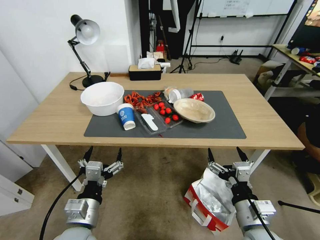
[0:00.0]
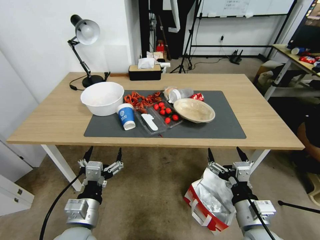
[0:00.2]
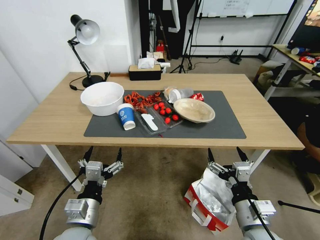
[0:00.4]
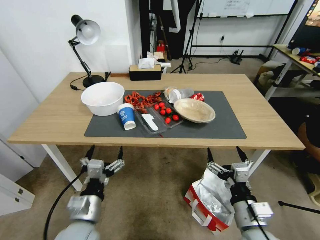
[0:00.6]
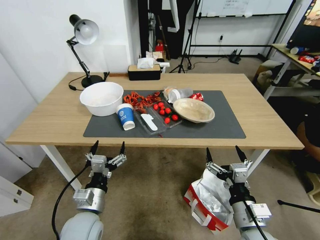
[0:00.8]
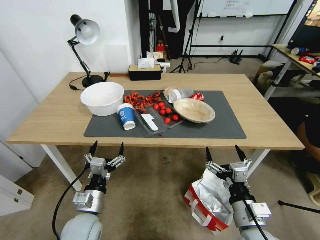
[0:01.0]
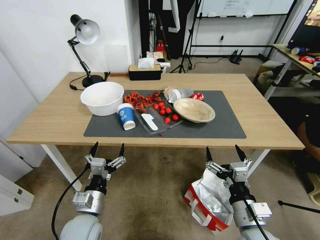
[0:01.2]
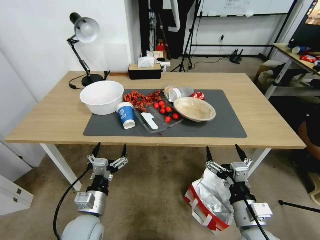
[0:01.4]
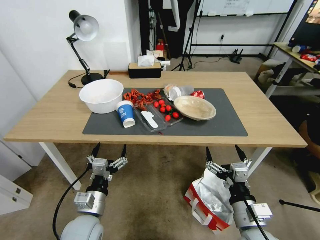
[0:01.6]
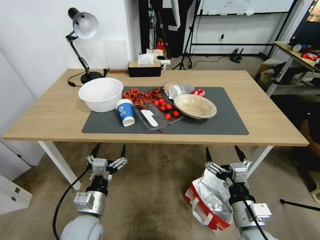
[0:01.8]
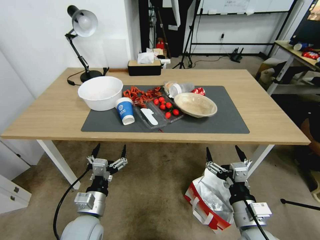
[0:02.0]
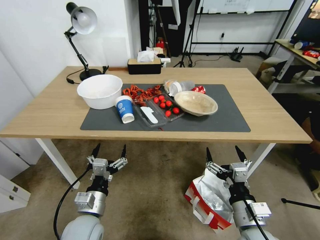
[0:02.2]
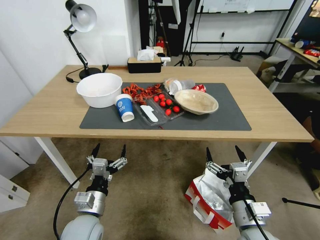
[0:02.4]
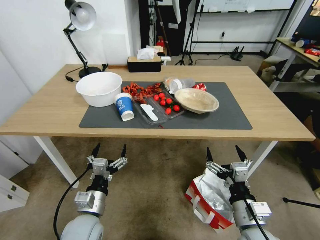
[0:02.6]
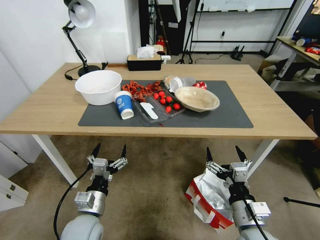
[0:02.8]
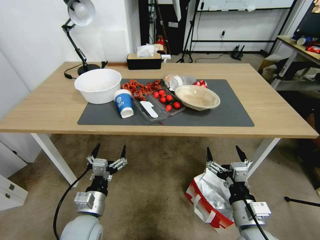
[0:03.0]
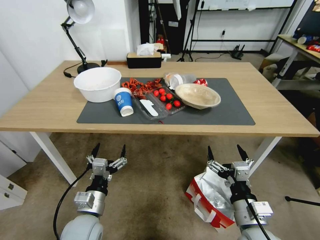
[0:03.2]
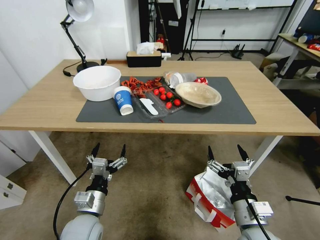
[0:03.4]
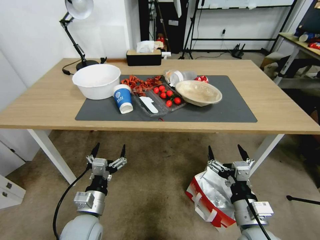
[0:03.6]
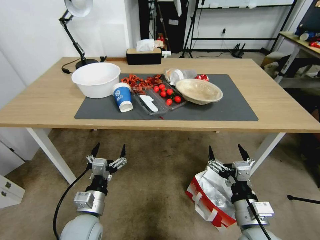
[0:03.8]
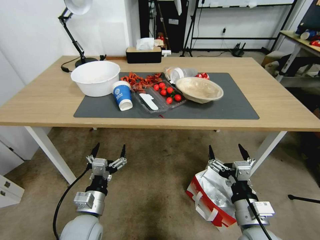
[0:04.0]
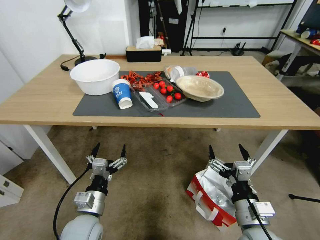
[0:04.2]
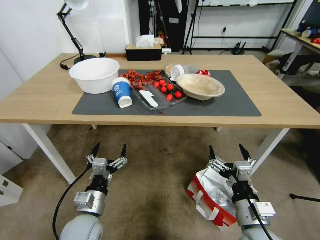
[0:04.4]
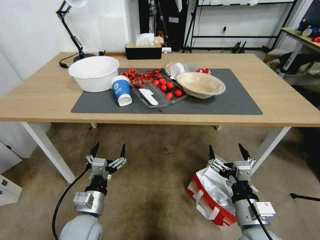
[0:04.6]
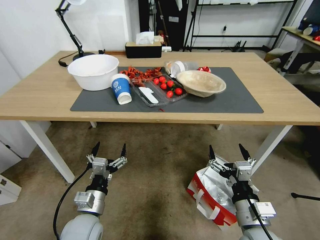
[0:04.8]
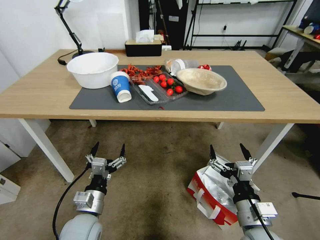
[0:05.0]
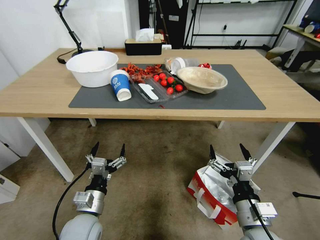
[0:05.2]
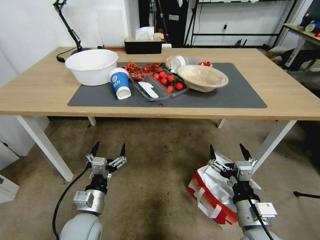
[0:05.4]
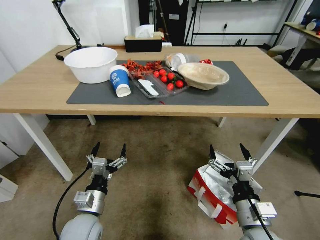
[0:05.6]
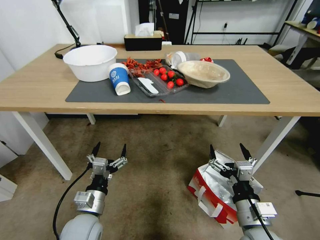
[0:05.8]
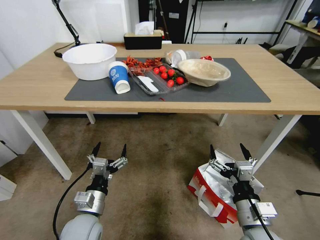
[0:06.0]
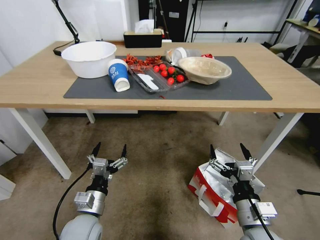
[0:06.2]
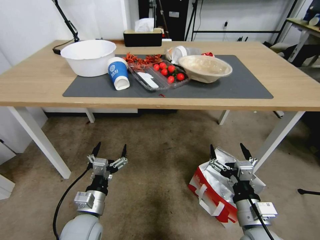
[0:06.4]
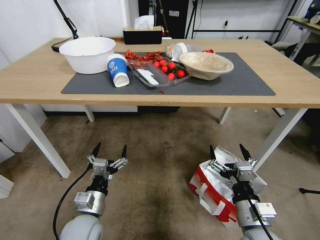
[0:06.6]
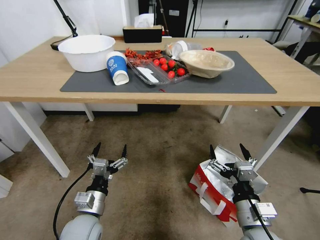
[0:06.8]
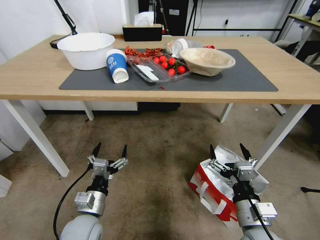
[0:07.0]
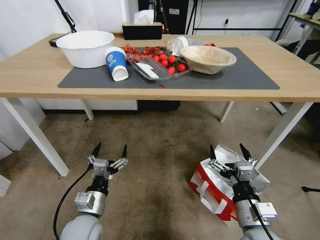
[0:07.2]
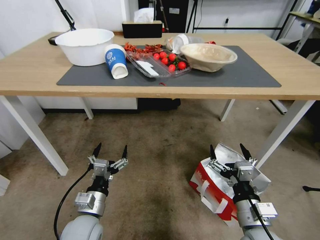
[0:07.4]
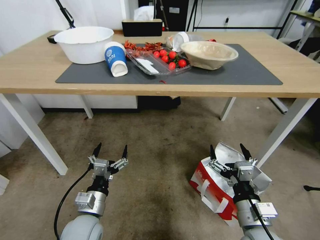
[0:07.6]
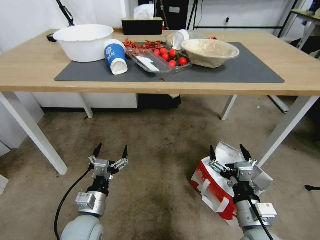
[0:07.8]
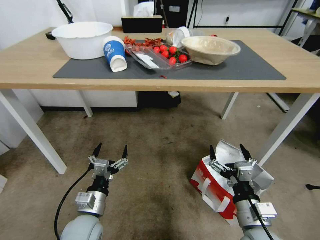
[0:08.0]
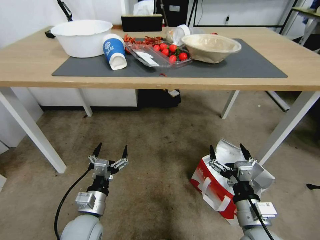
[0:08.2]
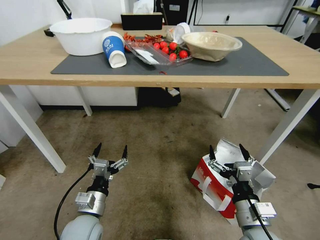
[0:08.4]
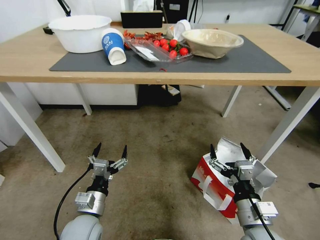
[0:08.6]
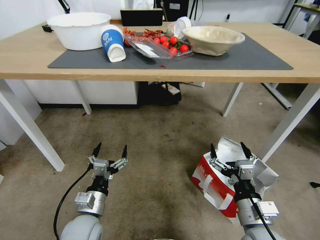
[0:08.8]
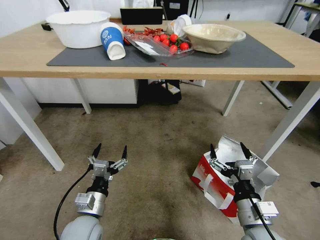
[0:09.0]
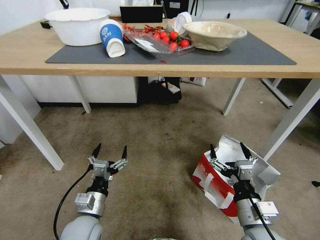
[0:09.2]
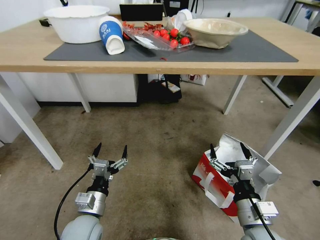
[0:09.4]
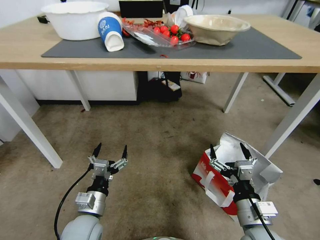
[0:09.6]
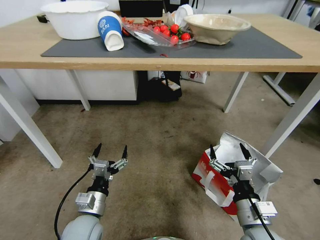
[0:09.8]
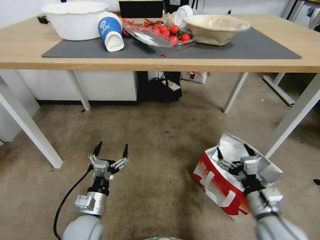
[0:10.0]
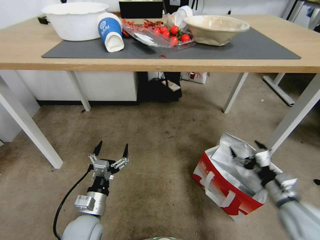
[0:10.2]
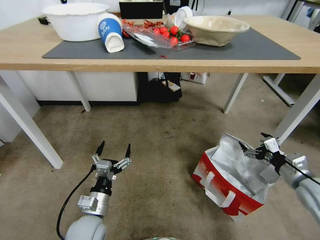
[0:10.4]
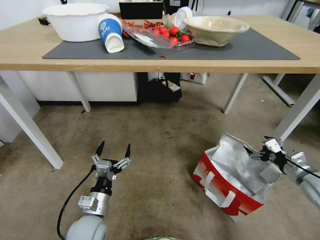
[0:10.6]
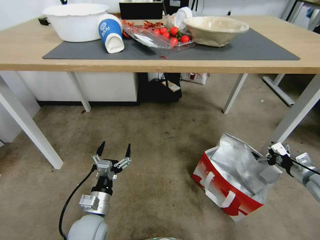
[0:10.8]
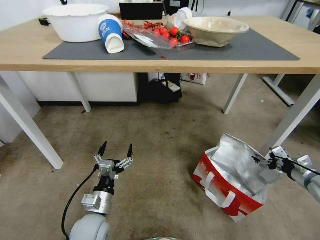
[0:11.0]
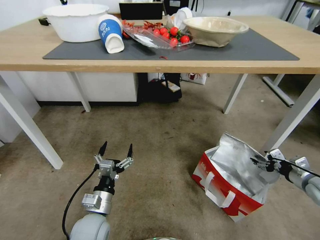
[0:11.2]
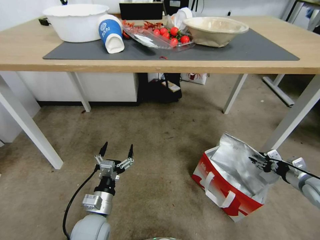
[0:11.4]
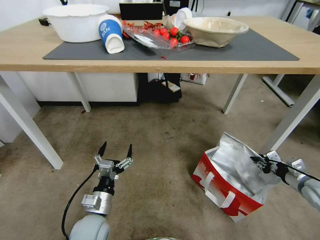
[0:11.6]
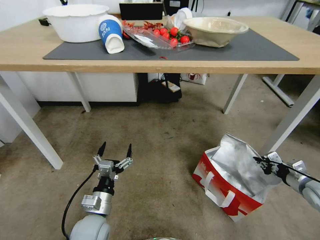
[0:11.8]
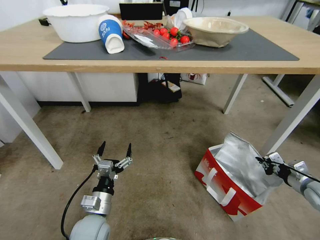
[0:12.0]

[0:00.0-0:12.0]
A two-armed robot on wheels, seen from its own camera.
Task of the whole recording: Pick up the food delivery bag from the floor and place it on the table.
0:09.0 to 0:10.4: The right gripper goes some 20 cm to the right and forward.
0:10.4 to 0:12.0: The right gripper shifts roughly 10 cm to the right and downward, and closes up.

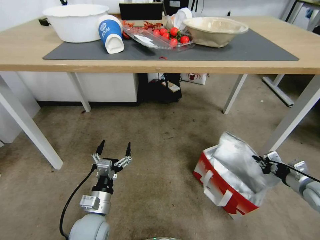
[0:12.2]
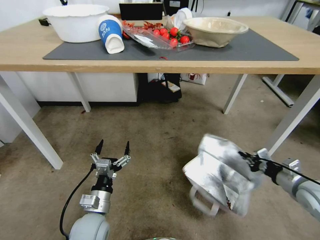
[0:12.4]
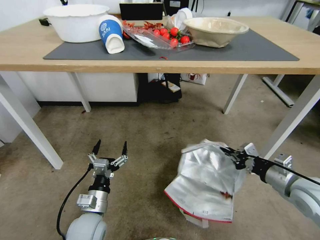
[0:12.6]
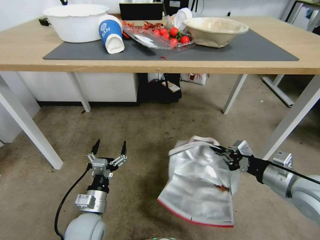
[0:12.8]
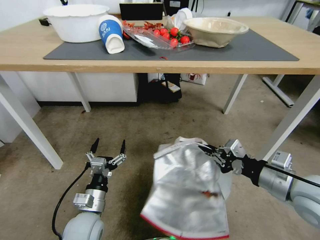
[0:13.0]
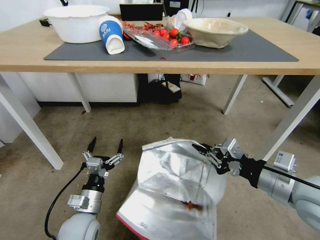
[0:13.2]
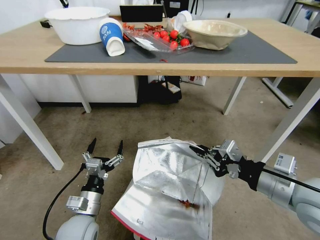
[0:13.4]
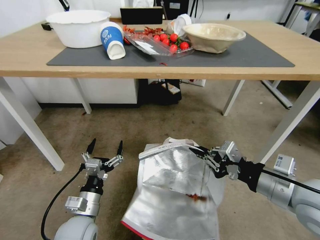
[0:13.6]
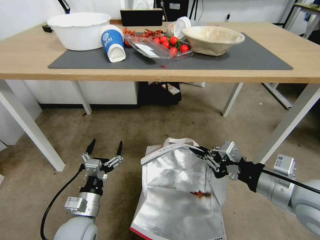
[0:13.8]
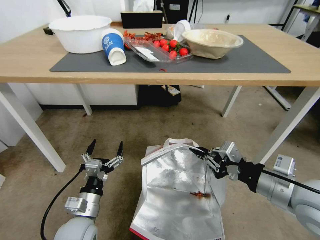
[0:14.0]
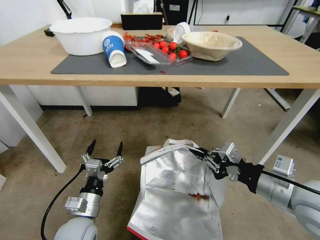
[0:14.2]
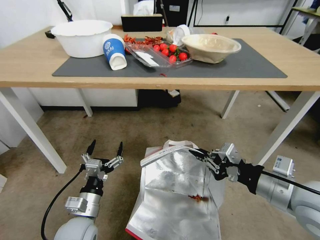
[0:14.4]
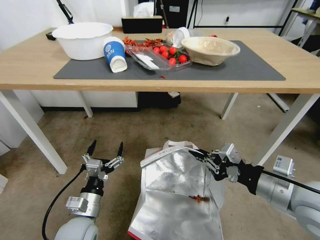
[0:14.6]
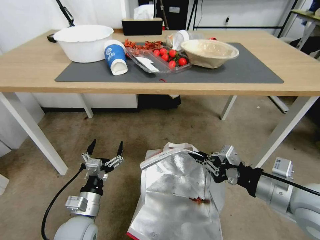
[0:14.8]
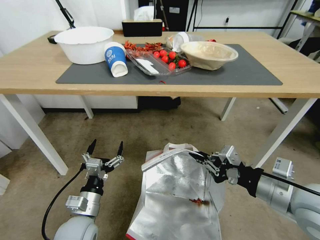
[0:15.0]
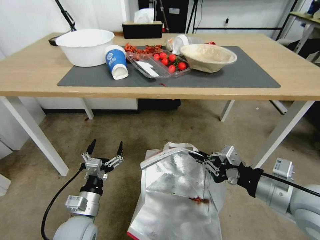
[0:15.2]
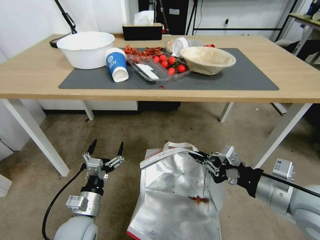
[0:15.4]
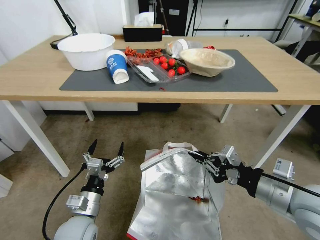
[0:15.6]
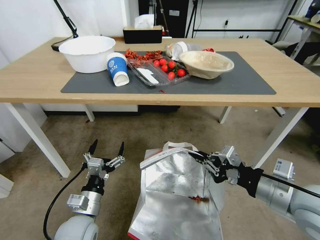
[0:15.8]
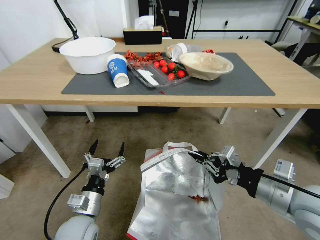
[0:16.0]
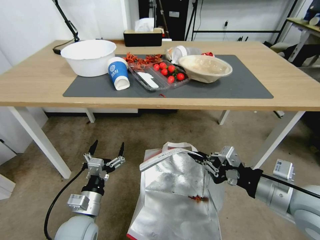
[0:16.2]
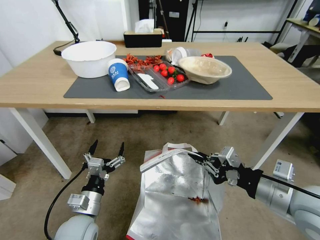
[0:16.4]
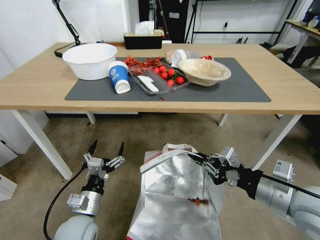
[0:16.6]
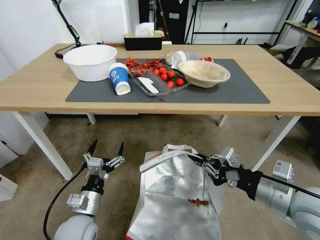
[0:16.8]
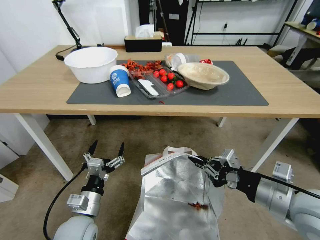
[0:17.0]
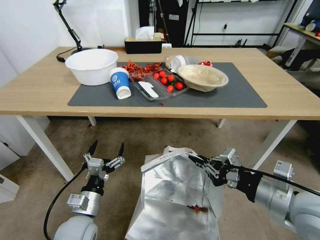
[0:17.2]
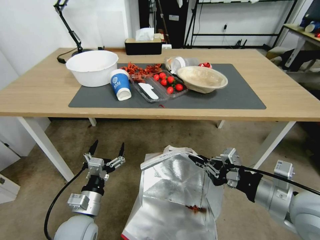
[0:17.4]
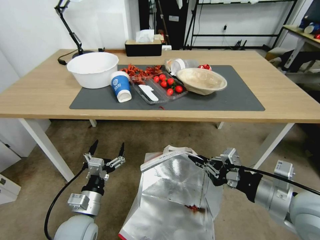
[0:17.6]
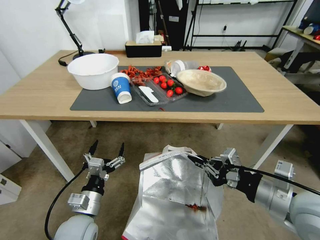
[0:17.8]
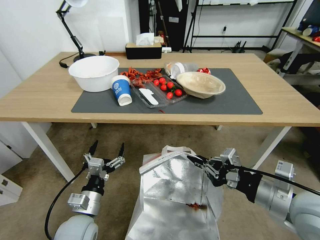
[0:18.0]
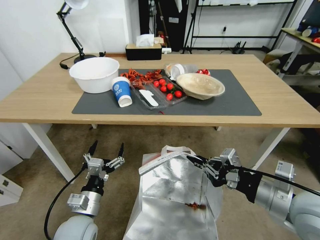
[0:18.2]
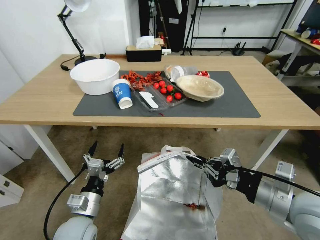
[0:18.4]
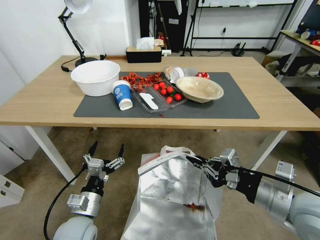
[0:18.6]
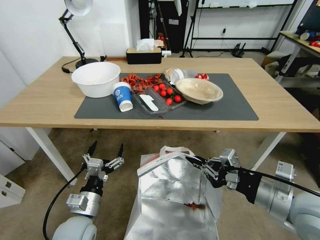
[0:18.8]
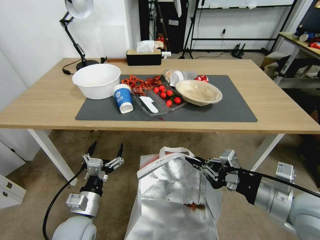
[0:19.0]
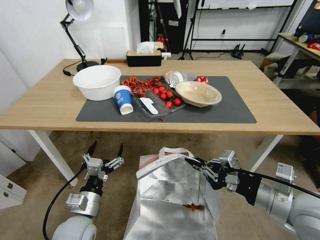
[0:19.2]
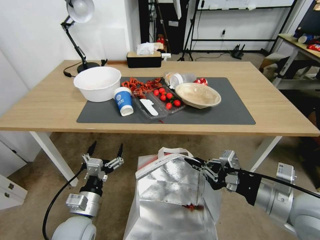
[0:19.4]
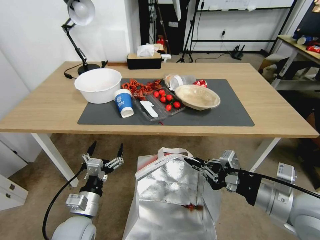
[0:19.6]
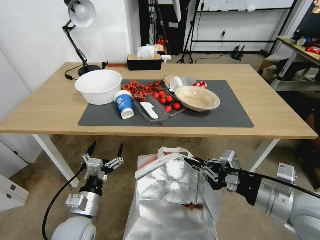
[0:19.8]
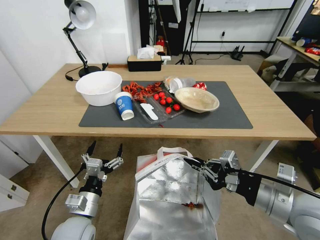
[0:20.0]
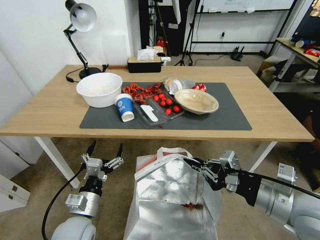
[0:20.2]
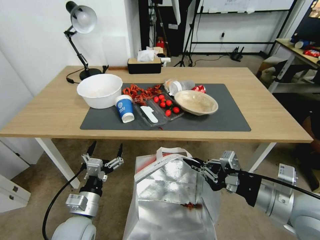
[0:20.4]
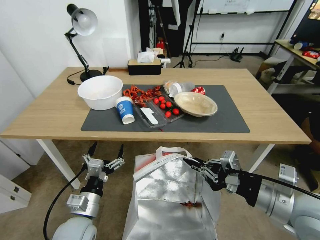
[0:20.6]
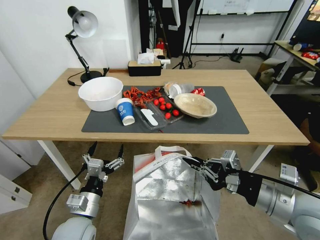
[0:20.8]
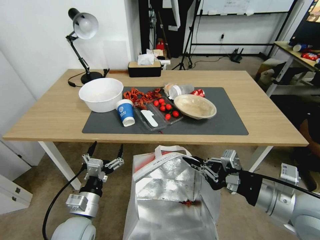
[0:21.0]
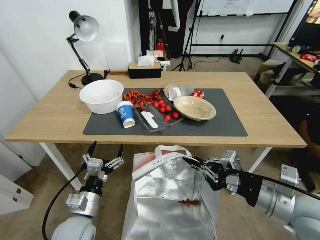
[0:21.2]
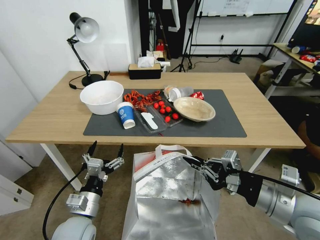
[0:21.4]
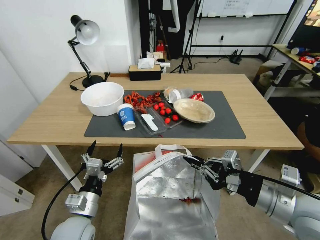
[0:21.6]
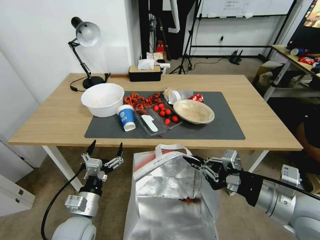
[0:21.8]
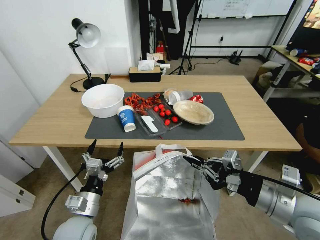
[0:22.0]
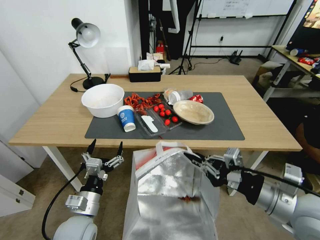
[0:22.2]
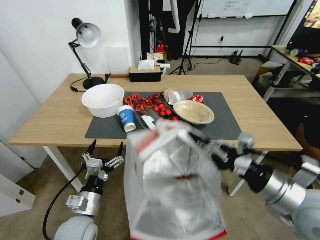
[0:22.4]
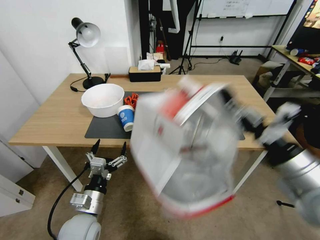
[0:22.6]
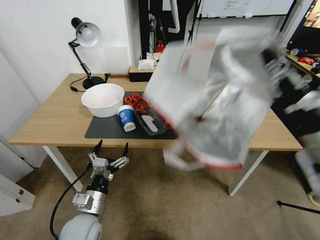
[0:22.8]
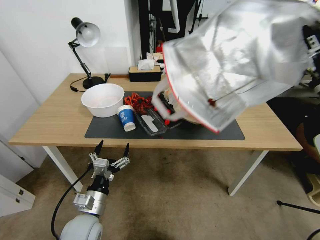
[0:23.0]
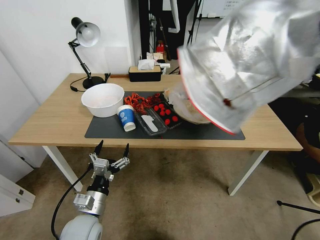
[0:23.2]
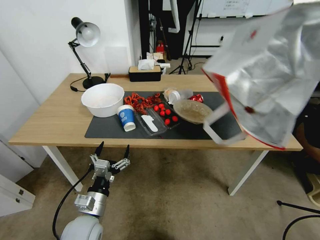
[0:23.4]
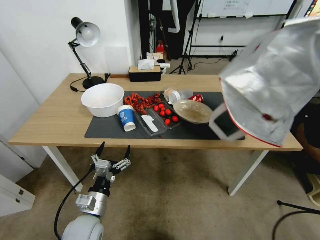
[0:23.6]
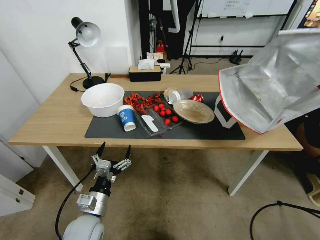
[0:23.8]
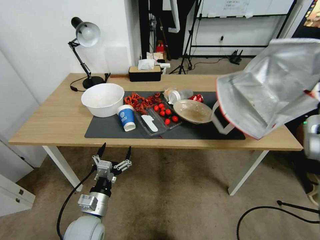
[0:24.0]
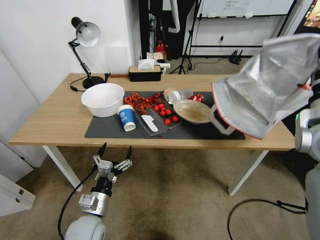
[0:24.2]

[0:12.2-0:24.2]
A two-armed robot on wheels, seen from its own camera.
Task of the whole recording: Pick up the food delivery bag from the floor and place it on the table.
0:12.2 to 0:13.8: The right gripper travels to the left and upward by approximately 25 cm.
0:22.6 to 0:24.2: The right gripper is displaced forward and to the right by approximately 10 cm.
